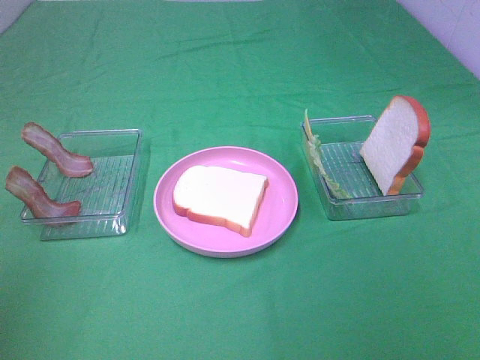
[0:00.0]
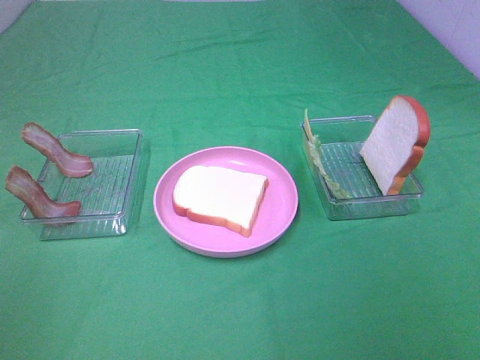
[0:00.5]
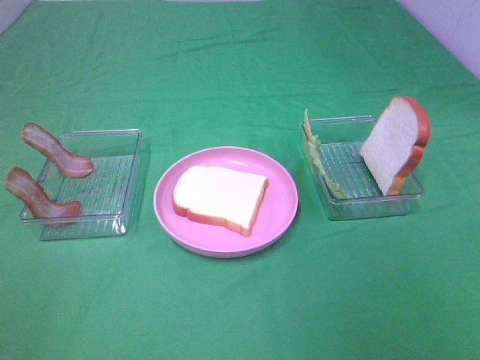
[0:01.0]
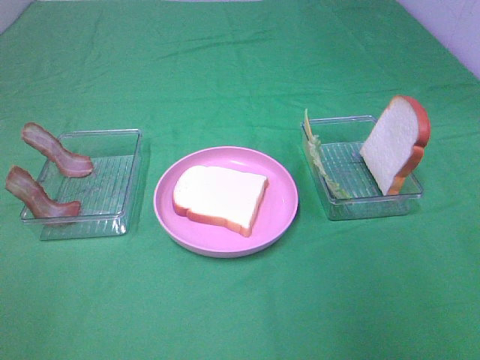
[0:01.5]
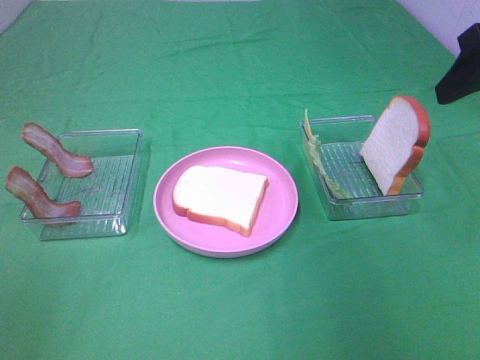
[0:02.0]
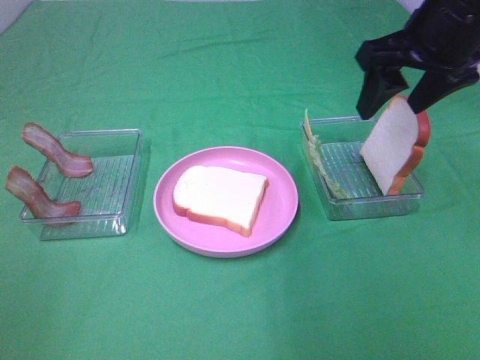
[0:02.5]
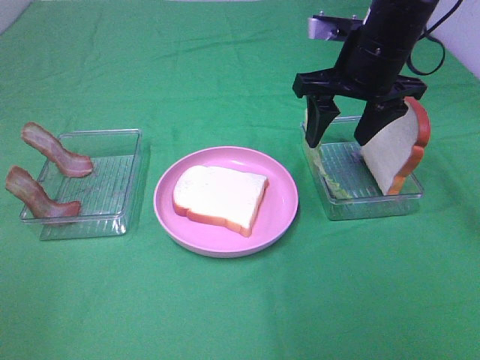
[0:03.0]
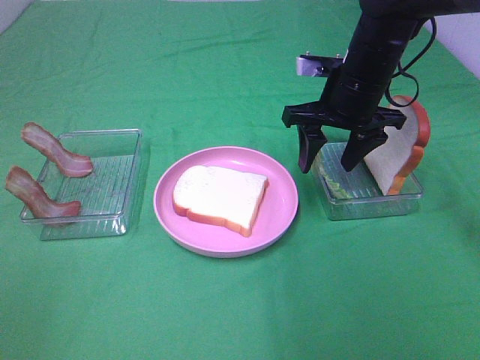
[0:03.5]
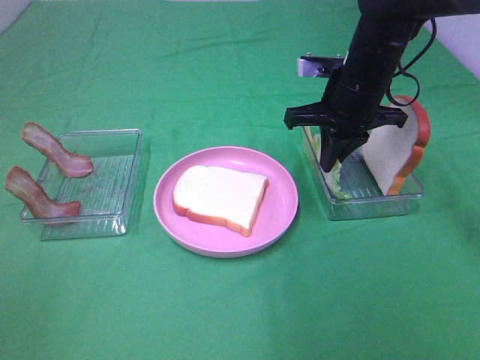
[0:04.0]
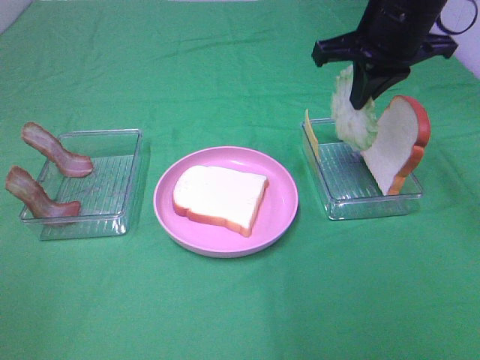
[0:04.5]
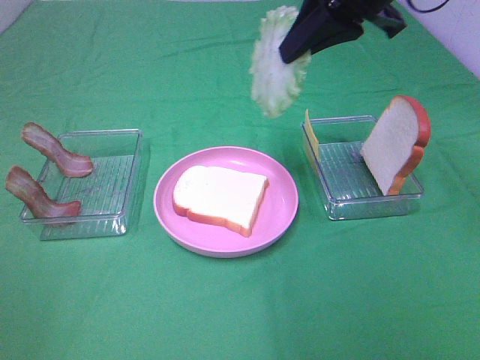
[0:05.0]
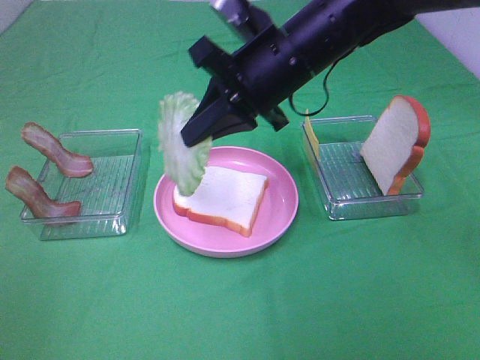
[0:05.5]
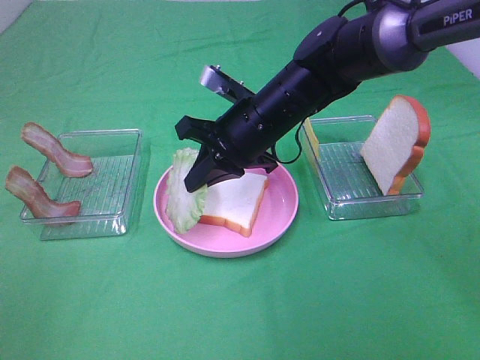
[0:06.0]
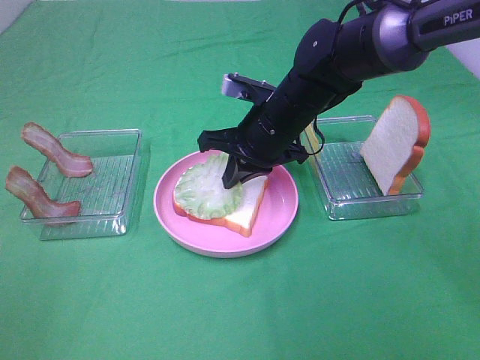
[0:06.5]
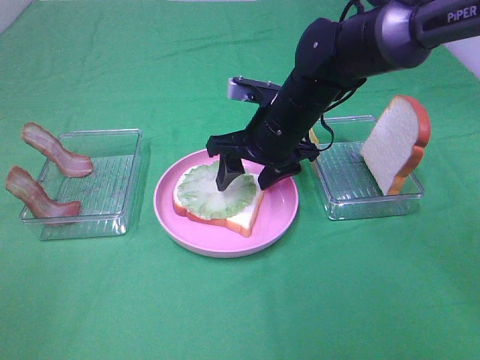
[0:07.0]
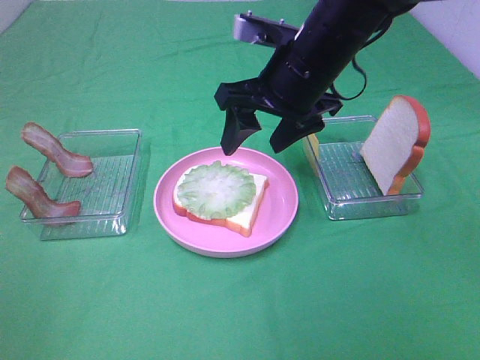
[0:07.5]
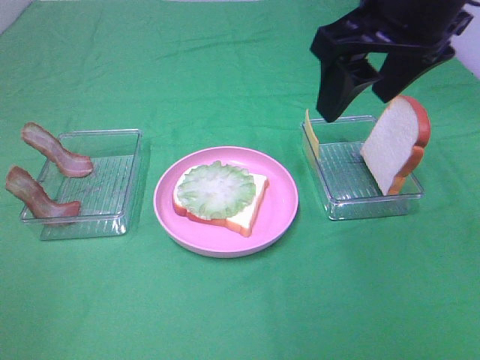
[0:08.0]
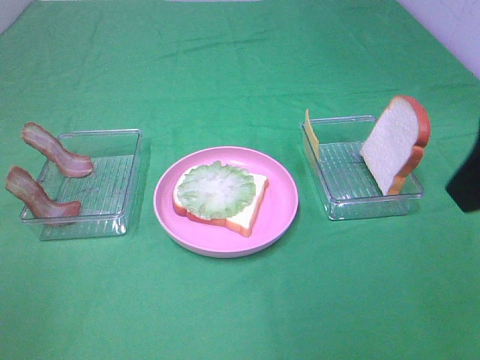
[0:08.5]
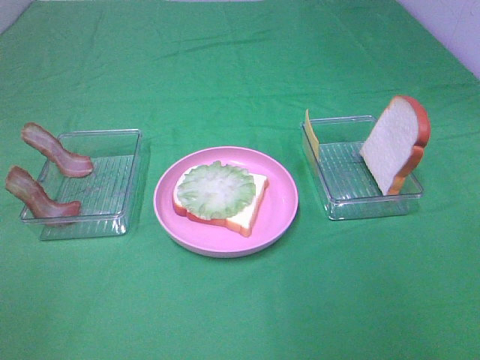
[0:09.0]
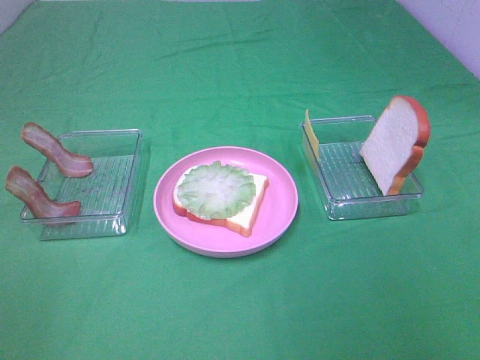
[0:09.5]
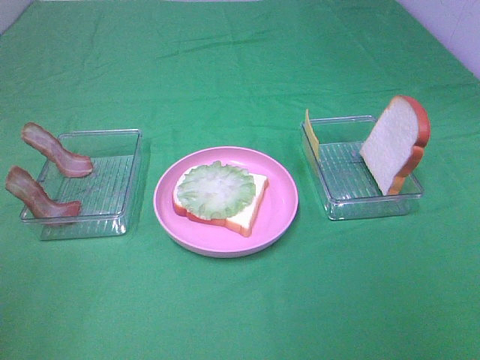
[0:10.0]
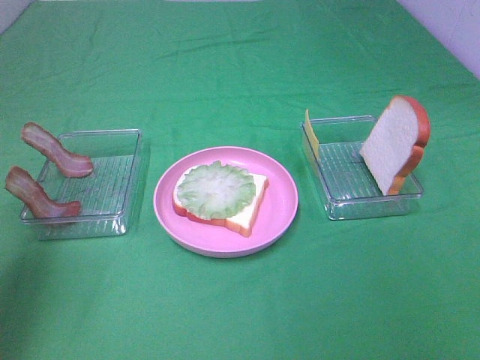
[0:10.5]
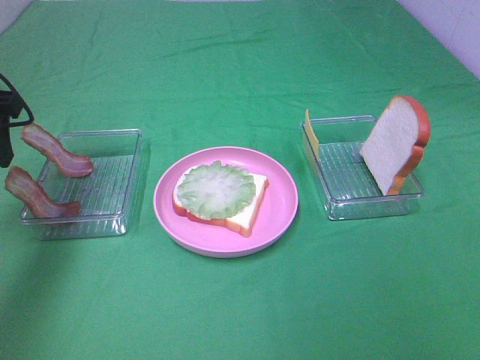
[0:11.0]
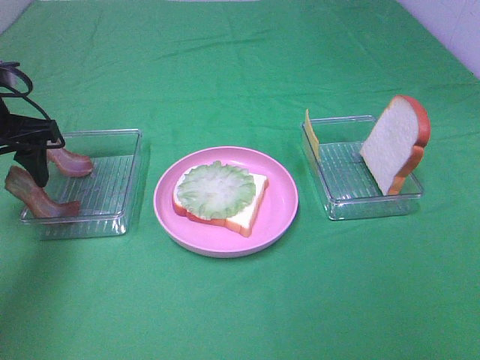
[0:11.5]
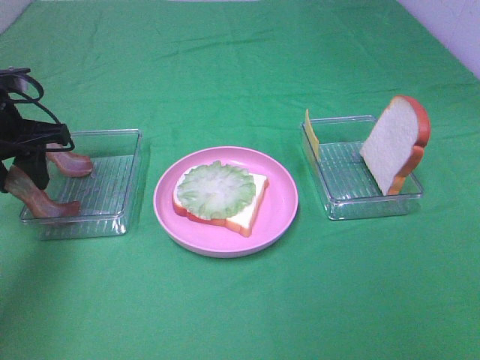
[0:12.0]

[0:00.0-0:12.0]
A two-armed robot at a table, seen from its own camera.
Task of the whole recording: Make sandwiches.
Step, 0.0 to 4.0 s: Right hand:grab the lettuce slice.
Step, 4.5 to 7.0 s: Right hand:place the lettuce slice on the bread slice.
0.0 to 2.0 s: The right gripper is displaced forward by some 30 cm.
2.0 to 4.0 s: The right gripper travels to the left, downward and forward by some 20 cm, and closes its fingers.
4.0 to 6.0 s: The right gripper shifts approximately 10 cm to the left, and reaches some 15 cm upward, then returns.
6.0 to 8.0 s: The right gripper is displaced upward, to the right and backward by some 25 cm, and opens.
8.0 to 10.0 s: The right gripper shifts some 35 cm backward and to the right.
10.0 to 12.0 s: The left gripper travels forward and downward by roughly 35 cm, and closes its fingers.

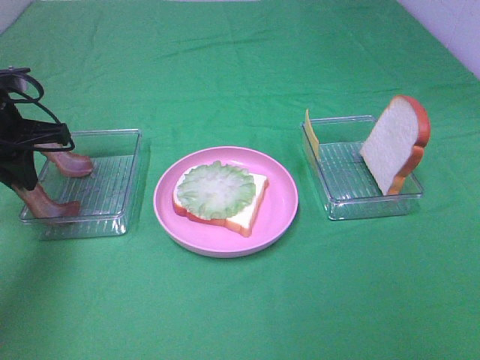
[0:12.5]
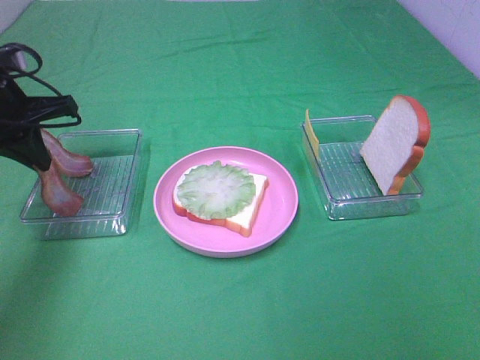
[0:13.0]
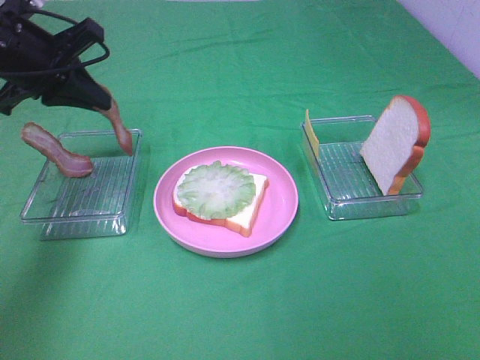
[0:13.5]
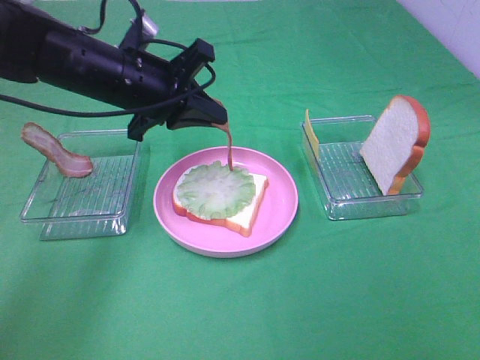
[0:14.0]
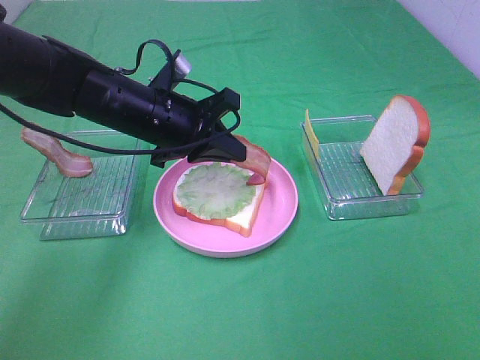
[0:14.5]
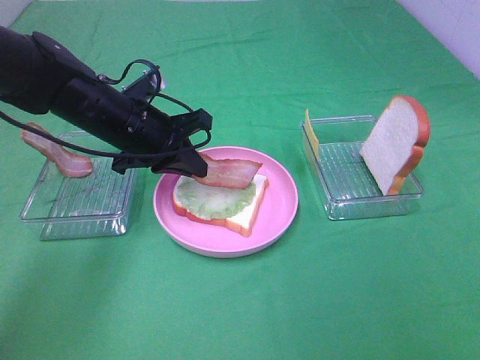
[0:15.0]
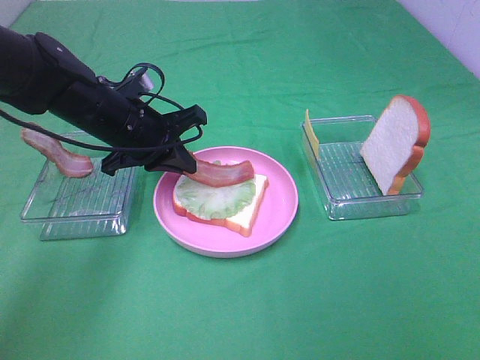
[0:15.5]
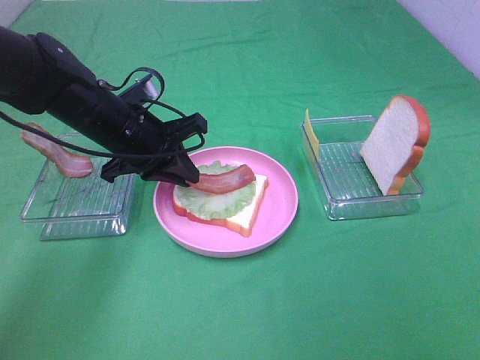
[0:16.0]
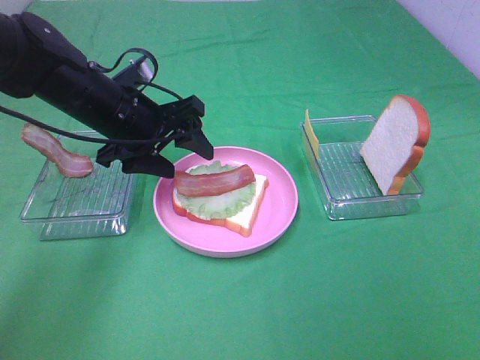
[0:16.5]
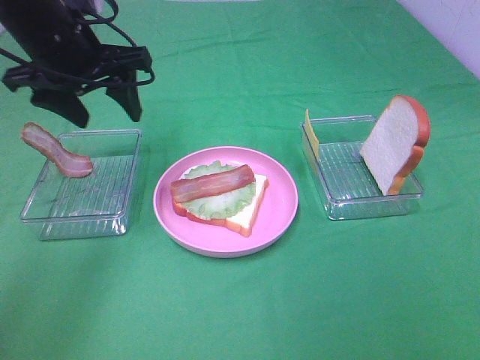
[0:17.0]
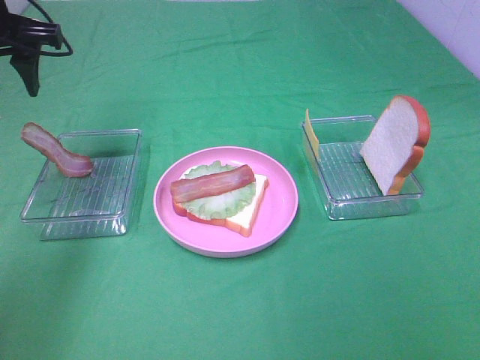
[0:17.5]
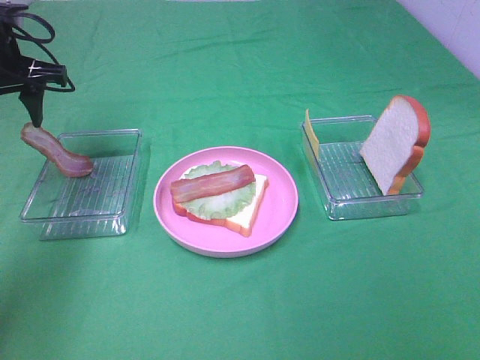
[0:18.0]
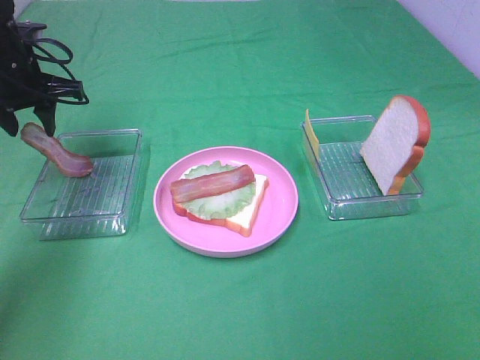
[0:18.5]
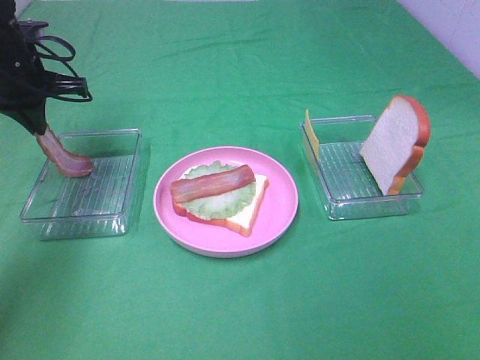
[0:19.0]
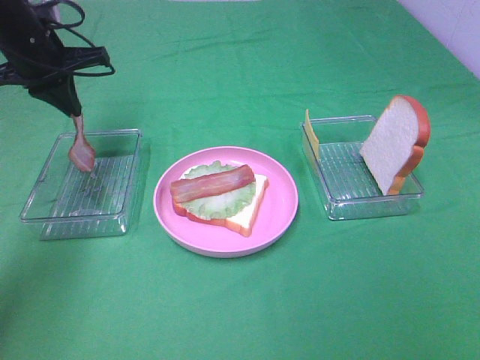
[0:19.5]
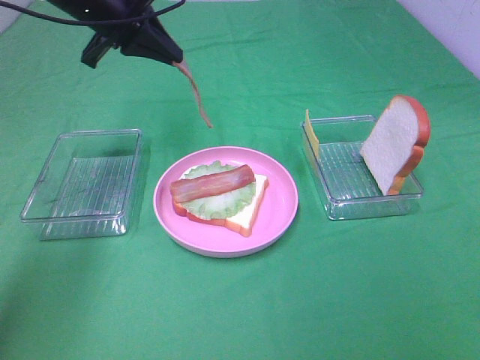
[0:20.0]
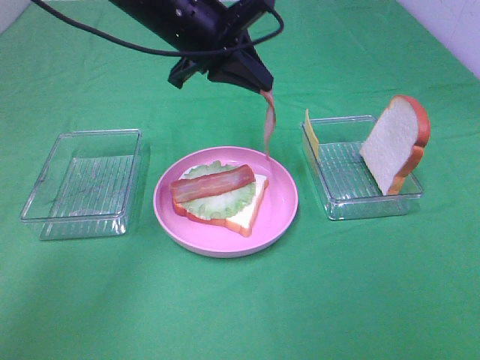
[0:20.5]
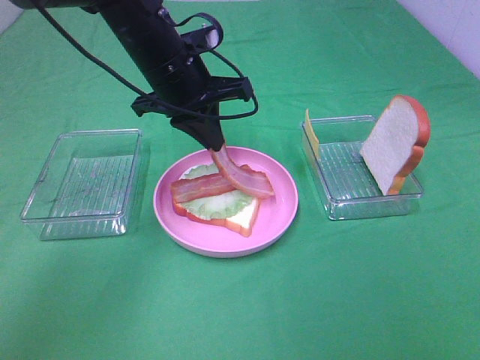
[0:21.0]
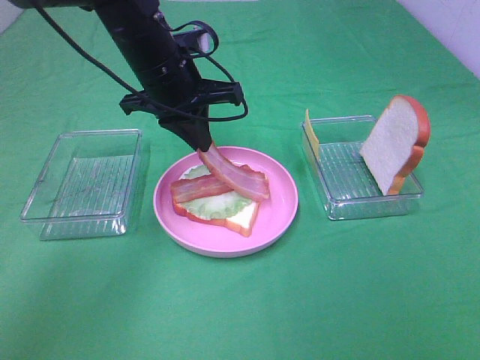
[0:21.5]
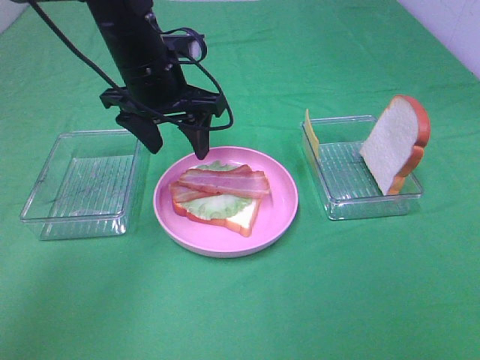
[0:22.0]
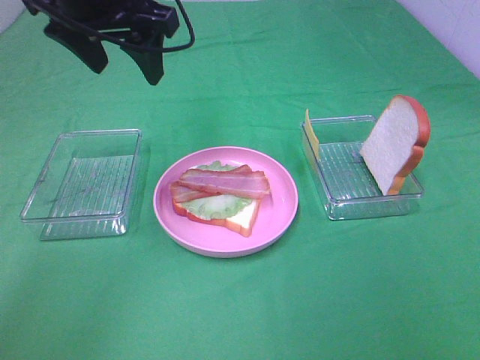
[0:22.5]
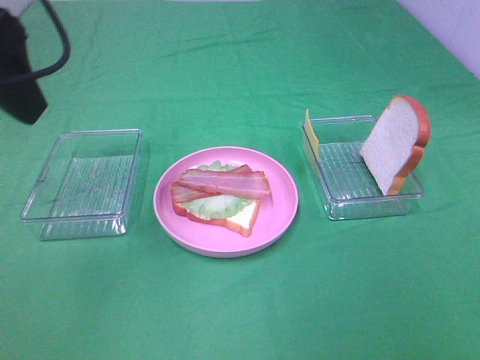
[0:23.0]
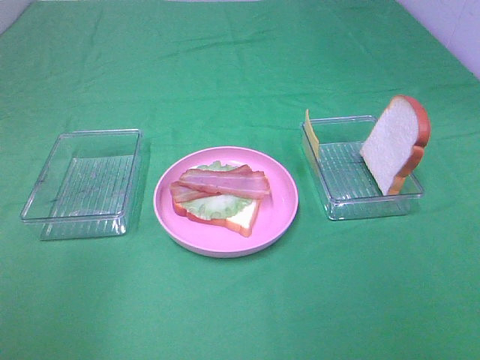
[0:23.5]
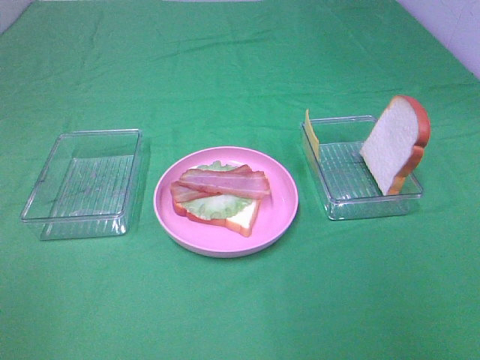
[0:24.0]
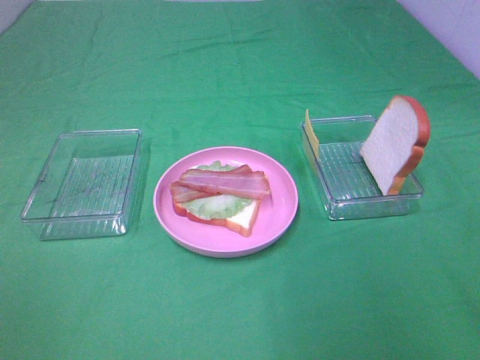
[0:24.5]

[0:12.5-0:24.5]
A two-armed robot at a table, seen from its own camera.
Task of the whole recording: Make sandwiches.
Step, 13.0 to 16.5 s: Left hand:place bacon on lettuce slice.
Step, 17.0 to 19.0 s: Left hand:grab the bacon.
Step, 19.5 to 21.5 s: Left hand:place bacon on bacon.
12.5 to 14.5 s: The left gripper moves to the right, approximately 20 cm.
14.5 to 16.5 s: The left gripper opens up.
16.5 to 18.5 s: The left gripper heads to the left and forward, covering approximately 15 cm.
18.5 to 20.5 s: The left gripper goes some 20 cm to the right, and closes.
20.5 to 22.5 s: The left gripper travels upward and to the left by about 10 cm, and opens up.
22.5 to 24.5 s: The right gripper heads forward, covering roughly 10 cm; the left gripper heads backward and to the left, covering roughly 40 cm.

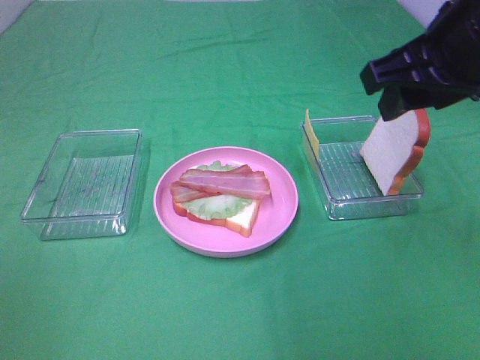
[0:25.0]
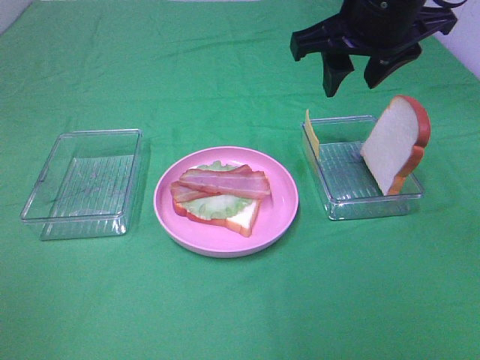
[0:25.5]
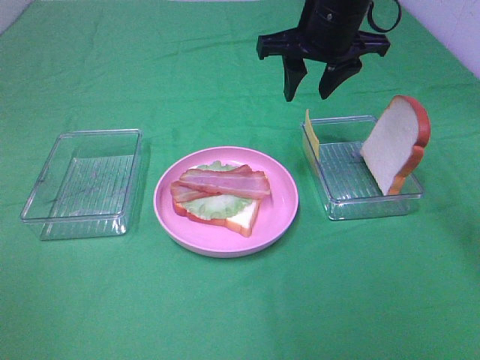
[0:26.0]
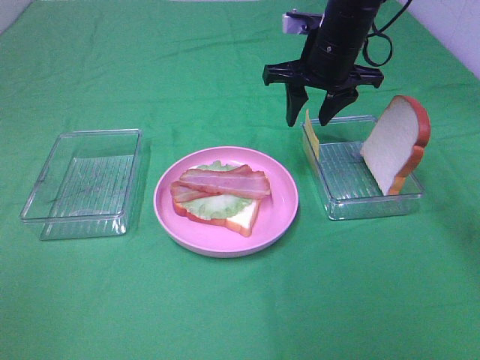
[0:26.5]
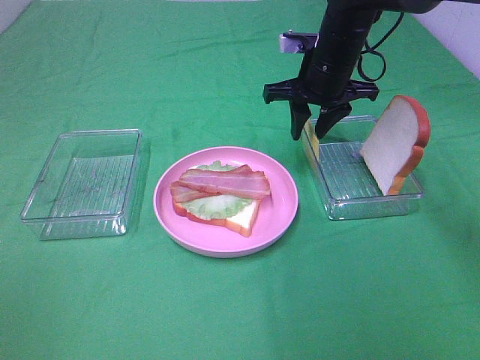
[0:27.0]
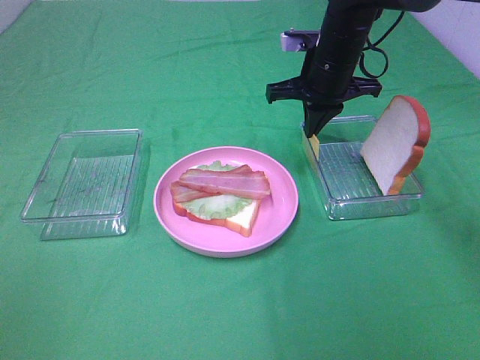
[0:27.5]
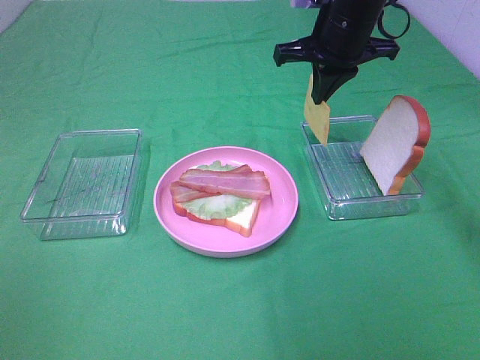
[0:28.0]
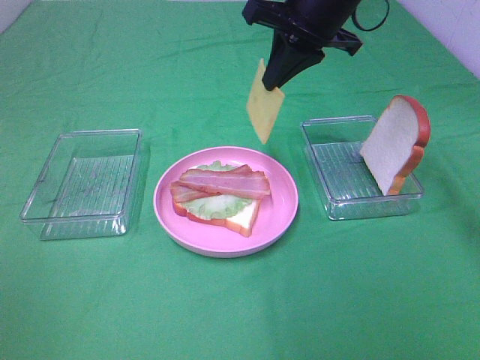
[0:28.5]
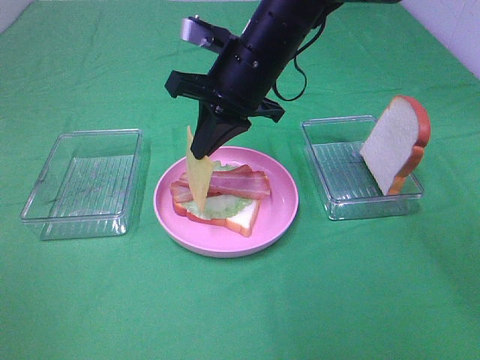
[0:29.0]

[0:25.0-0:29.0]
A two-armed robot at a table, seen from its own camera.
Task of the whole recording: Make sandwiches.
Step, 25.0 to 27.5 s: Right hand:grab the cheese slice.
25.0 to 27.0 s: The right gripper heads forward and downward, covering about 25 cm.
27.0 to 29.0 s: The right gripper is displaced to the left and backward by approximately 15 cm, and closes.
